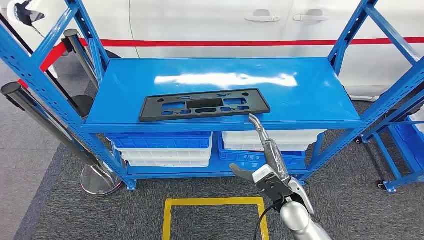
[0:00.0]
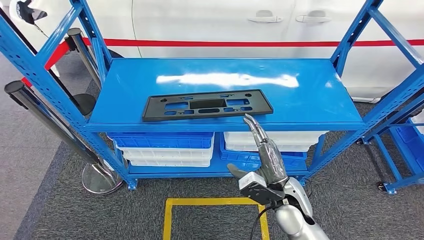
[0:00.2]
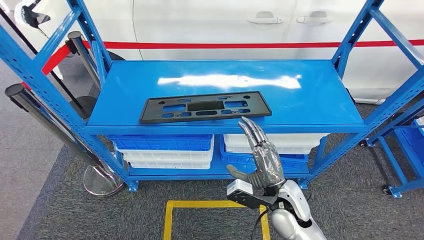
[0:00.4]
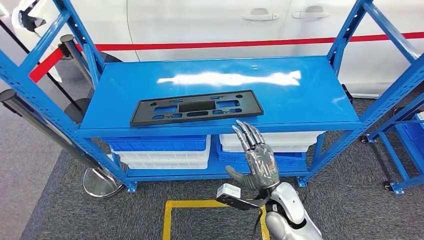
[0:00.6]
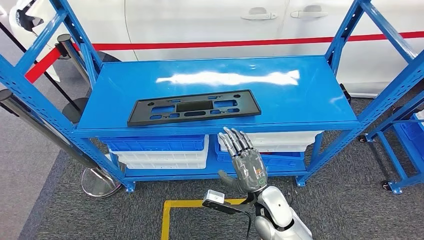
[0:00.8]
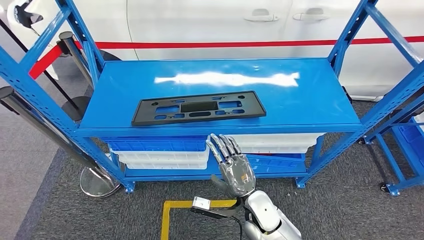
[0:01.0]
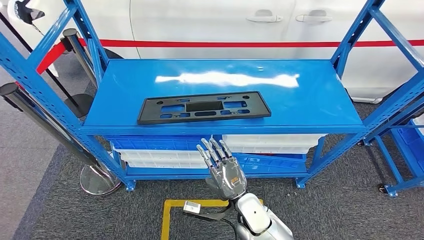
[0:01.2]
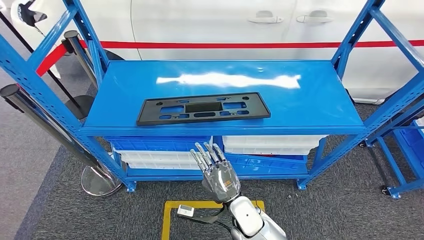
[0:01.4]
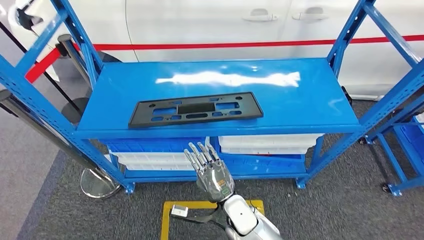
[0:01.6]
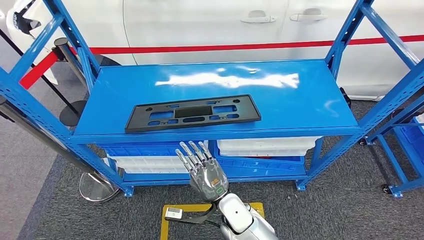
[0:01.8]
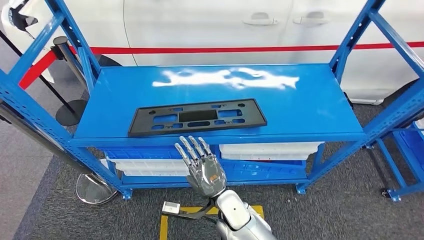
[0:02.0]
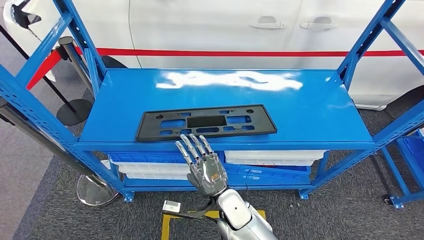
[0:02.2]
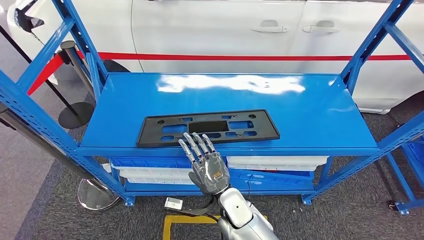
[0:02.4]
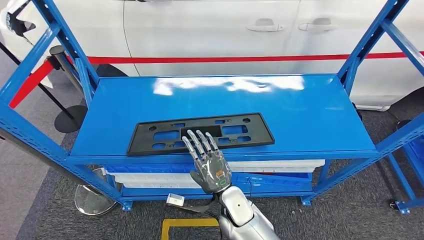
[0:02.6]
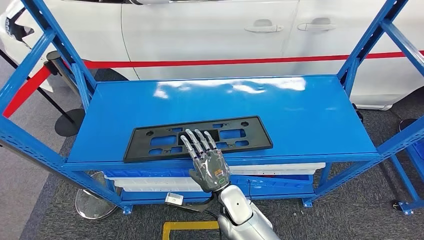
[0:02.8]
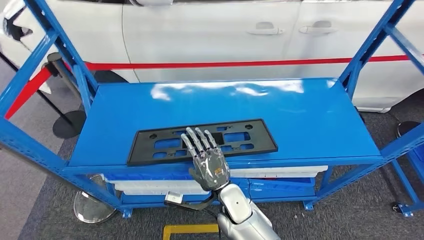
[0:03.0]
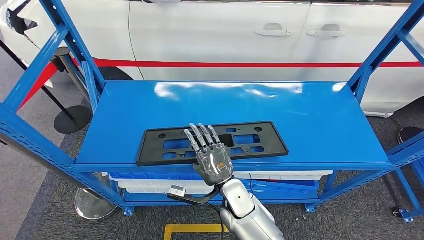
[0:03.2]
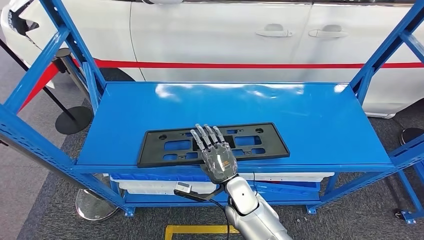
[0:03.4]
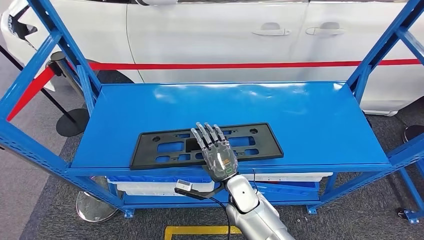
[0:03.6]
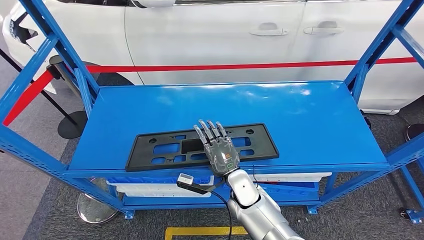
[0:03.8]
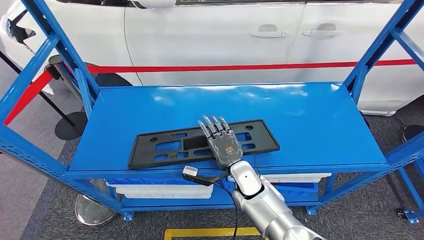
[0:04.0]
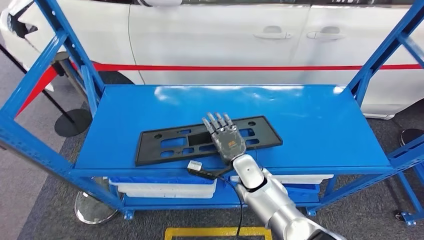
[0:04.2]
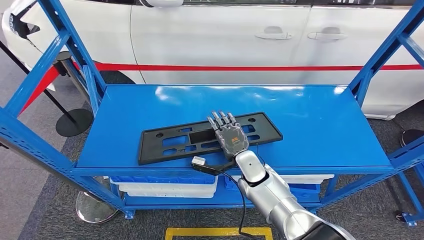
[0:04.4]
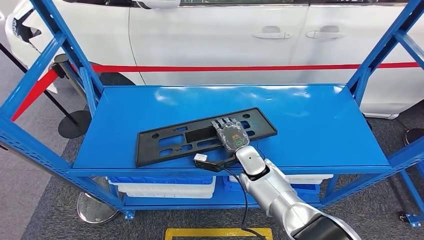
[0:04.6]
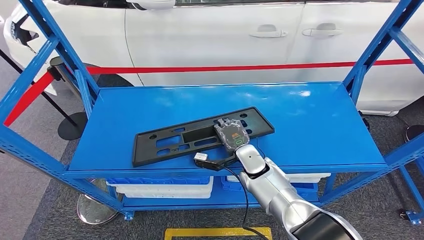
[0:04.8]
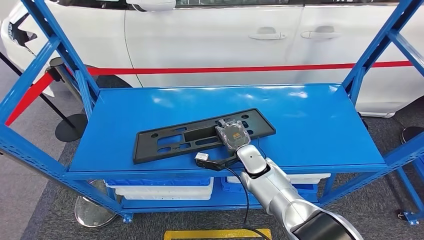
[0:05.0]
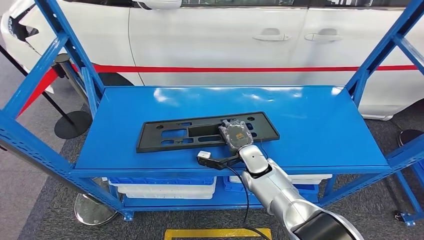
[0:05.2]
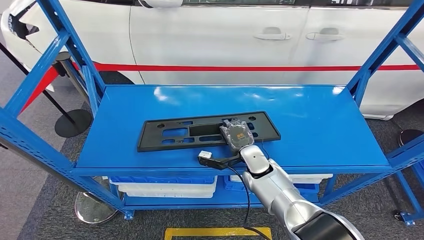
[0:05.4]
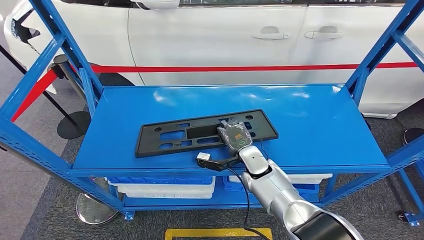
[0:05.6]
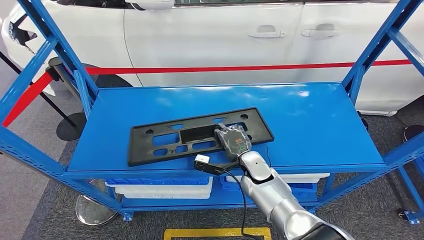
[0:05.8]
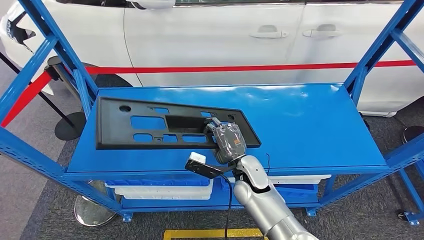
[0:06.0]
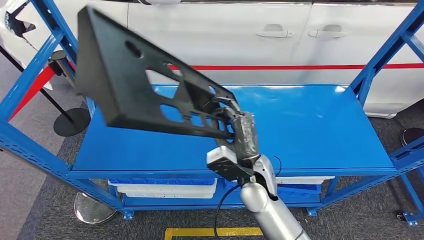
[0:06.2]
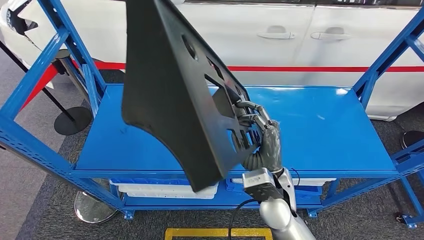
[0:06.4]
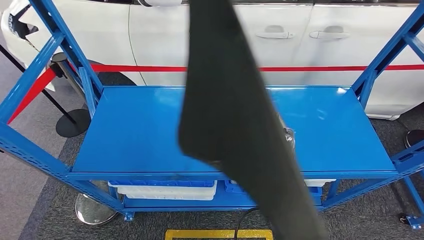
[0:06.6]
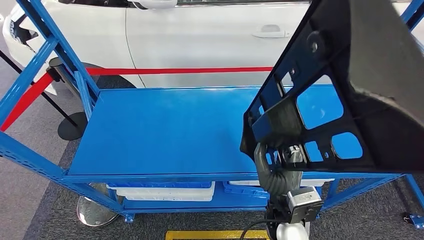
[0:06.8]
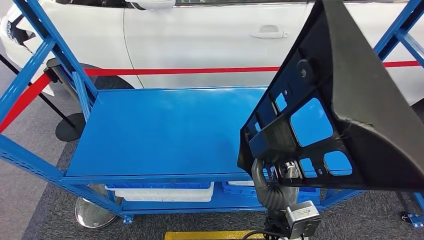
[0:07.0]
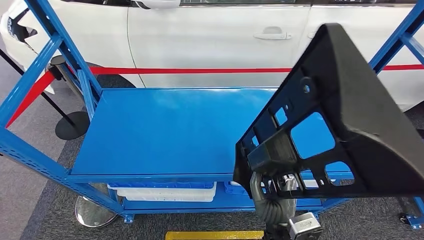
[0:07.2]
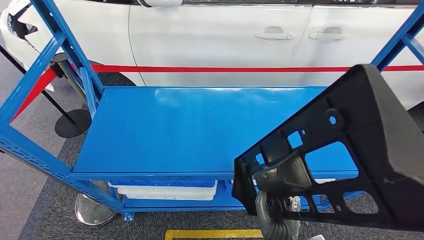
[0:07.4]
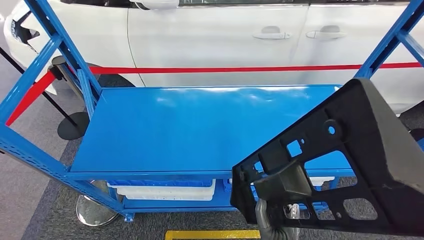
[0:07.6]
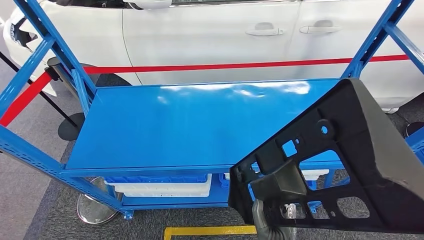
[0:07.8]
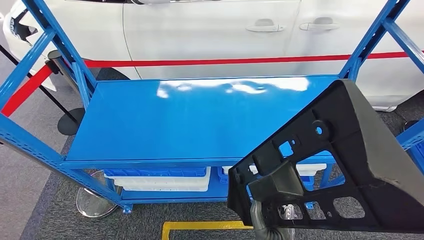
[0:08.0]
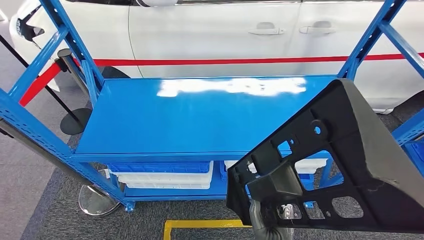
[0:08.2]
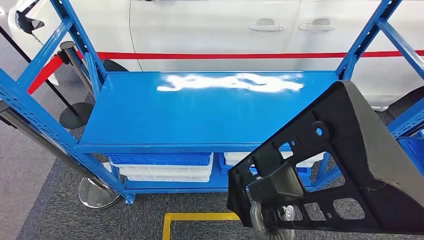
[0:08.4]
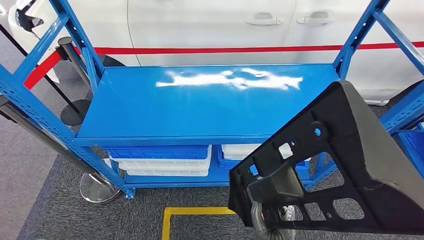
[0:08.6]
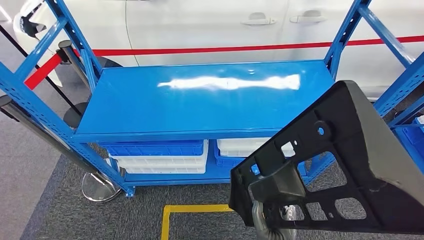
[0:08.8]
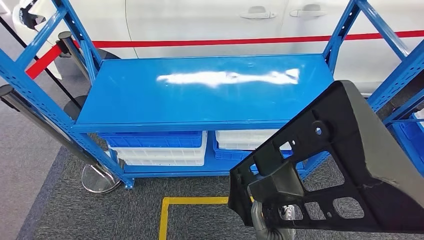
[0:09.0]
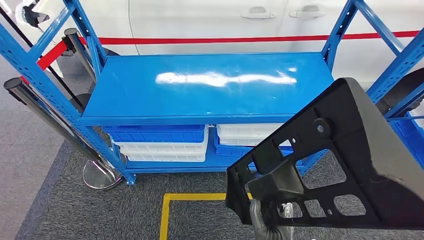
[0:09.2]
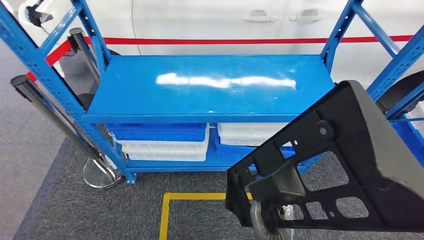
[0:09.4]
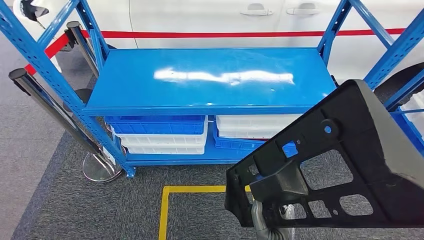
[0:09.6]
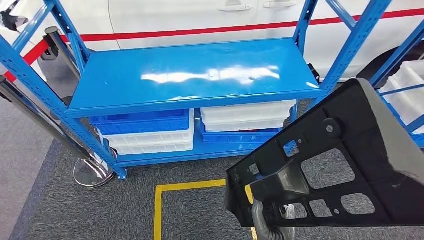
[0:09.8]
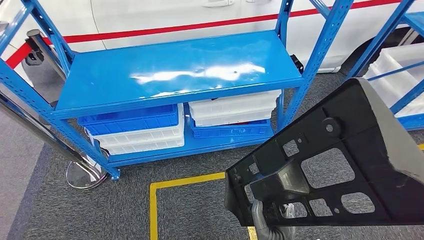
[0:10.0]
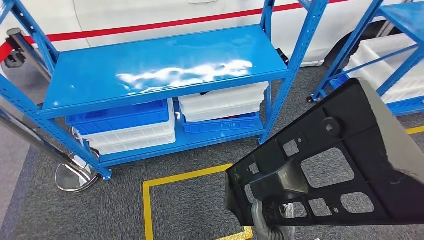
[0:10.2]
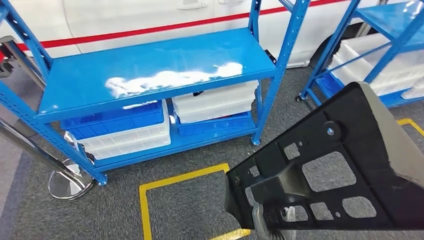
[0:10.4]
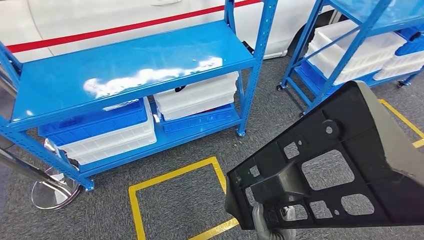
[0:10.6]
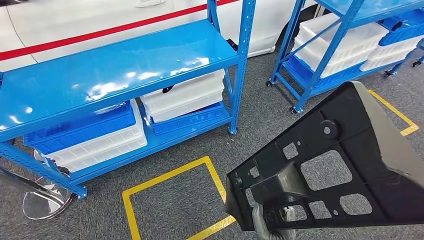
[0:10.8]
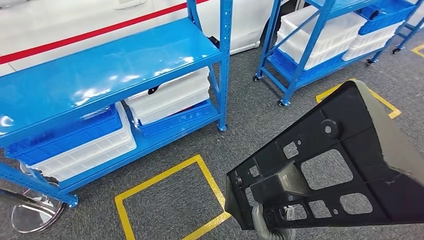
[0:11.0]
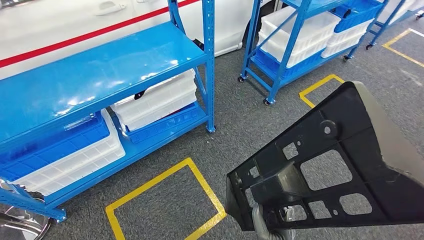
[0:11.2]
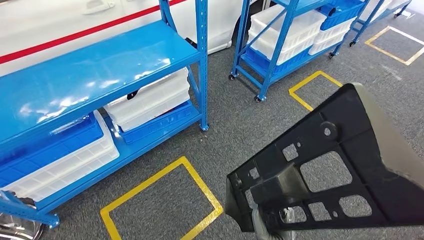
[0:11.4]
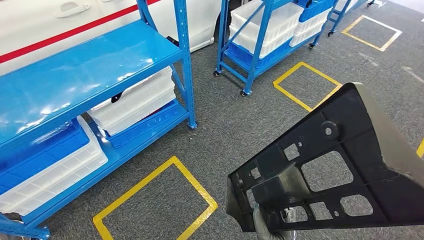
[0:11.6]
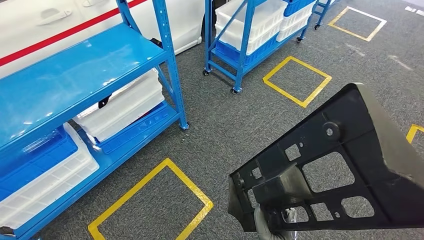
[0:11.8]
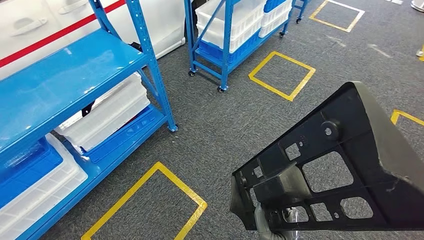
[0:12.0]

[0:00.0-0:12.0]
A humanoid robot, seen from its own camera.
Step, 0:00.0 to 0:08.4: Pick up the large material from the shelf.

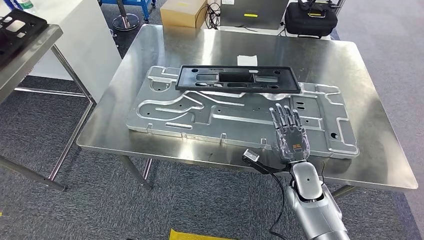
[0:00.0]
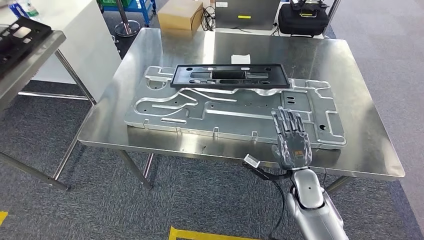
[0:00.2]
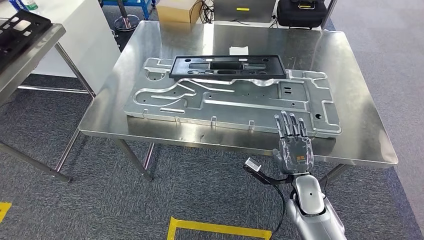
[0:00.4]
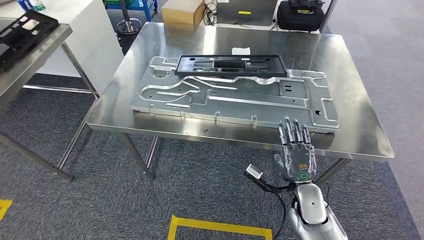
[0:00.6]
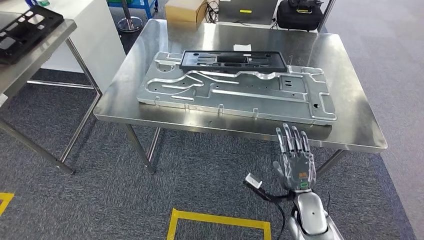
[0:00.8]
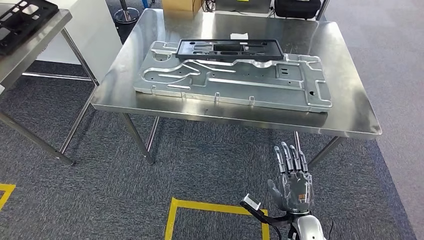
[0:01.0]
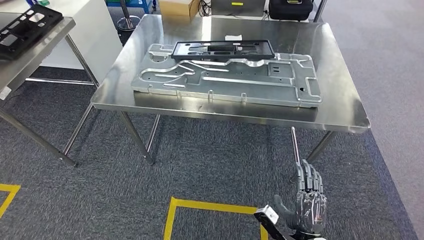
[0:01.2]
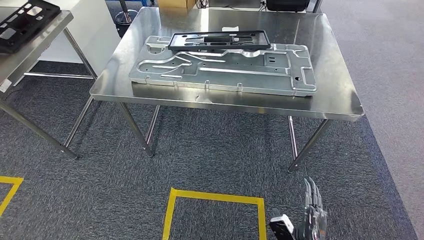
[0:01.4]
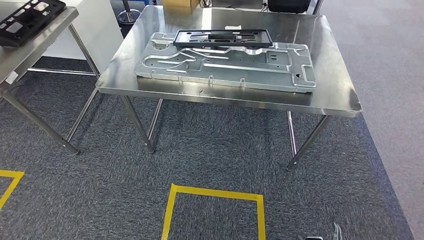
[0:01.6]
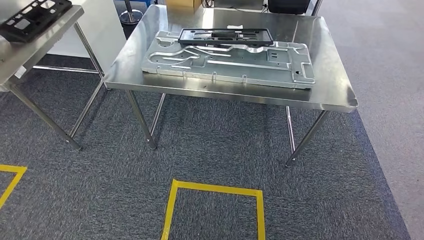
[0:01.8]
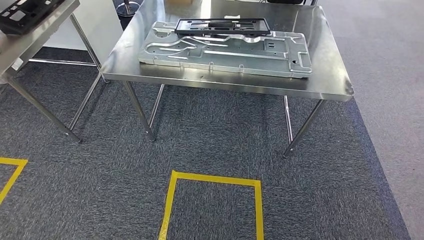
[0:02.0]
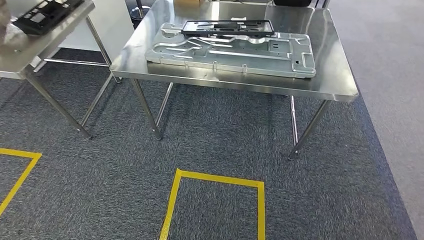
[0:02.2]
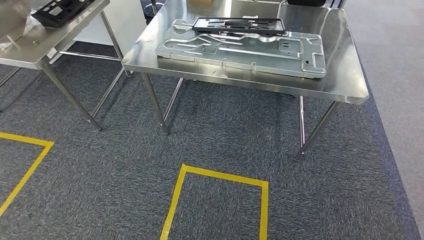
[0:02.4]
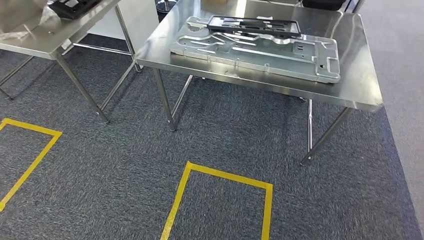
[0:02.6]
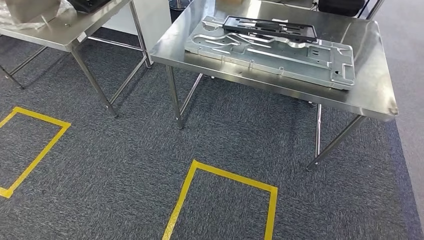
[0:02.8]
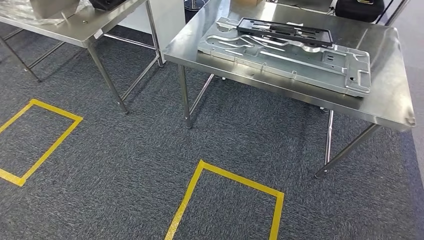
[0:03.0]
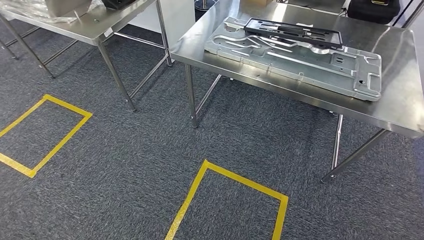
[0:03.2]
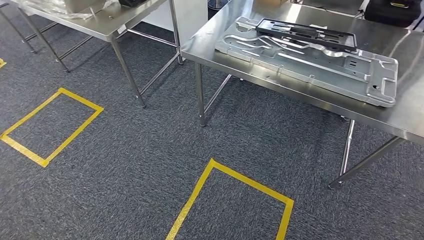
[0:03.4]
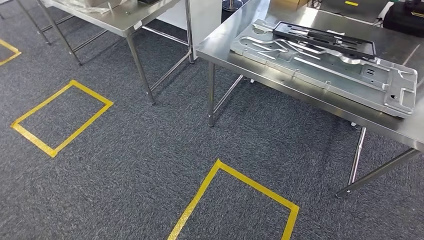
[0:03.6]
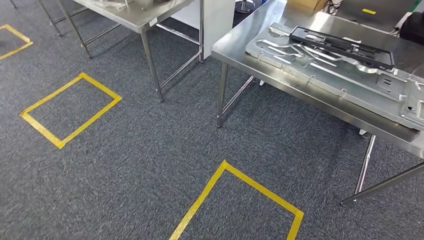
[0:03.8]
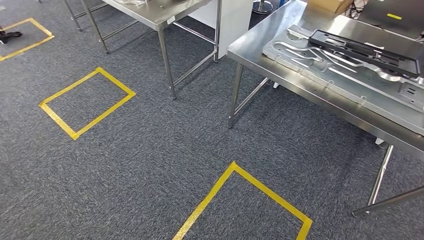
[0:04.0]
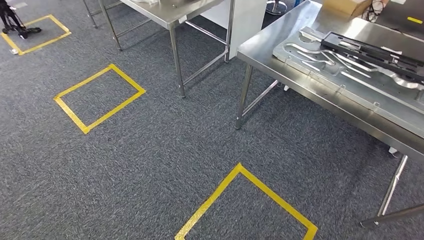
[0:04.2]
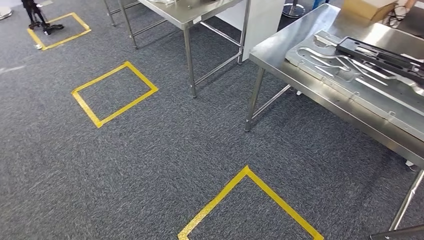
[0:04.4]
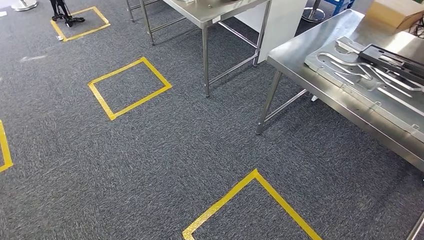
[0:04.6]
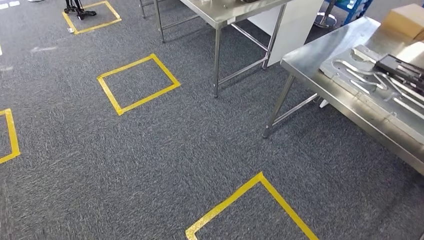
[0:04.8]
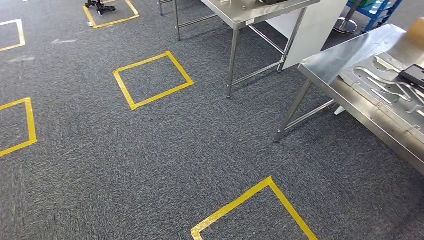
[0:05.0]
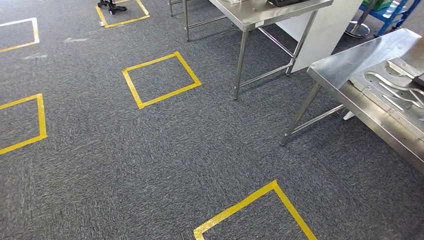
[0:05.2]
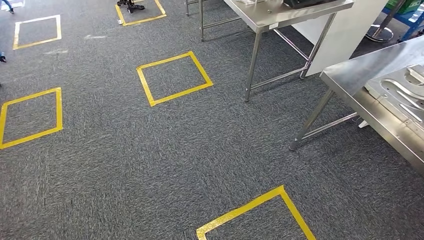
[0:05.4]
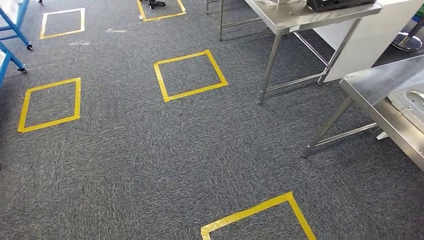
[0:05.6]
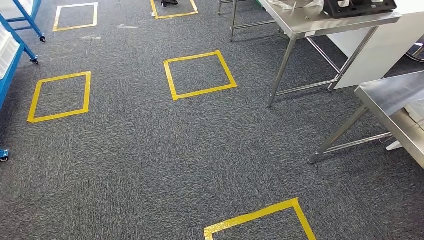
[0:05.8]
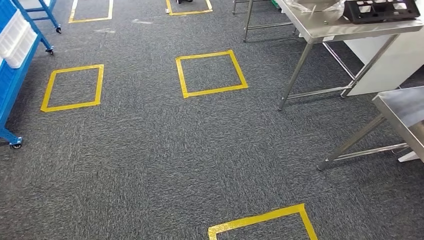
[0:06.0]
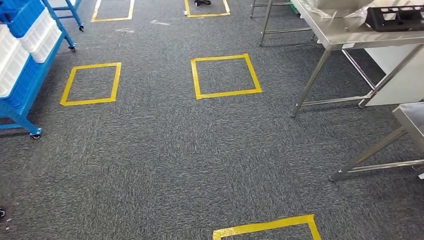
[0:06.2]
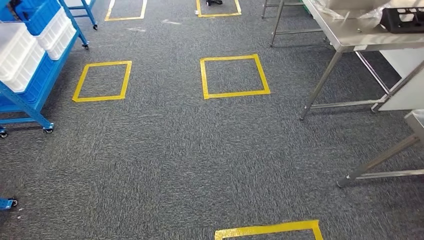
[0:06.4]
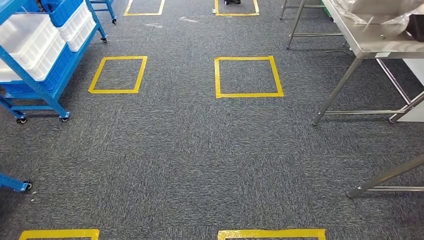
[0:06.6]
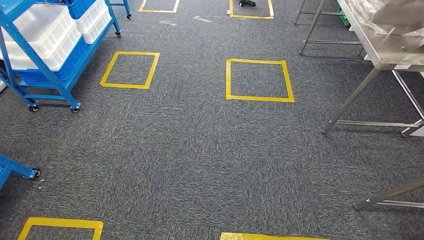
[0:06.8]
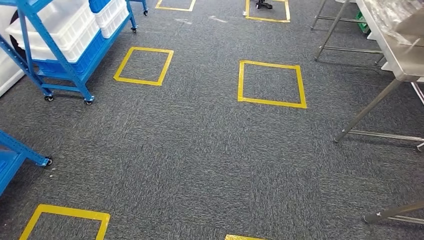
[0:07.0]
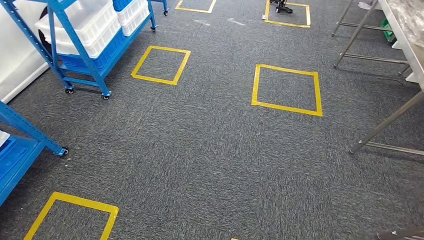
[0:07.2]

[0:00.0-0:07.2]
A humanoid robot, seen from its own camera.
Step, 0:00.0 to 0:03.0: Insert the large material into the corresponding slot on the workbench.
